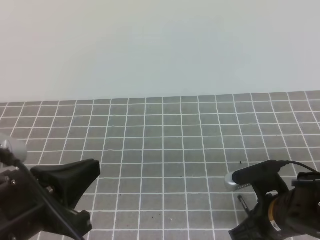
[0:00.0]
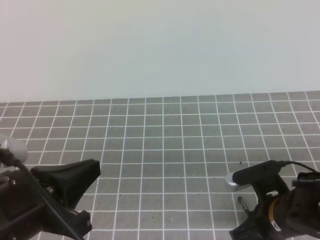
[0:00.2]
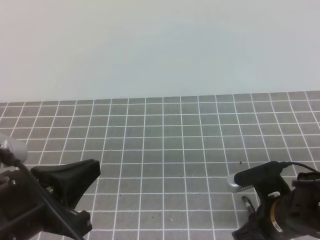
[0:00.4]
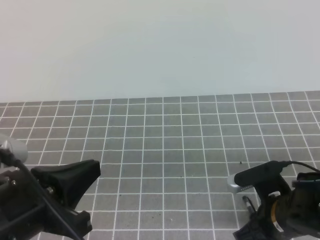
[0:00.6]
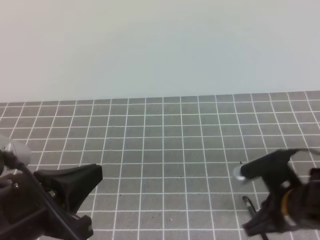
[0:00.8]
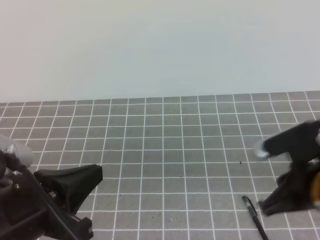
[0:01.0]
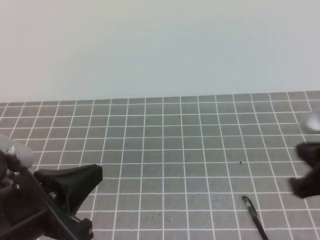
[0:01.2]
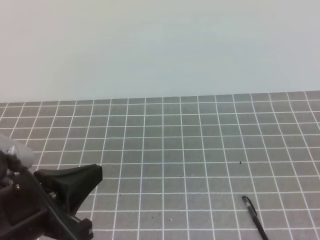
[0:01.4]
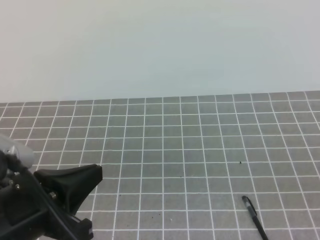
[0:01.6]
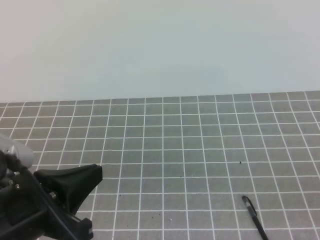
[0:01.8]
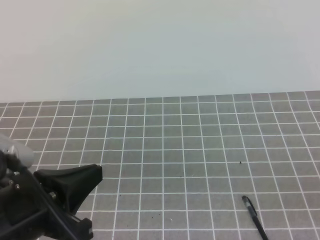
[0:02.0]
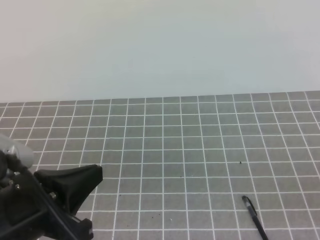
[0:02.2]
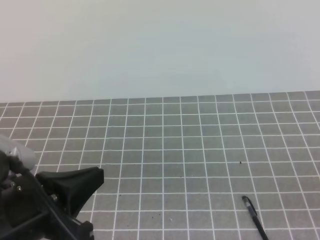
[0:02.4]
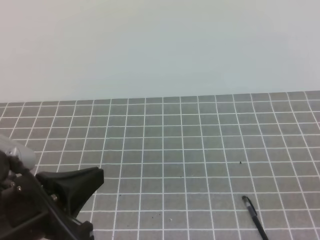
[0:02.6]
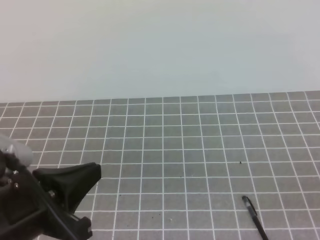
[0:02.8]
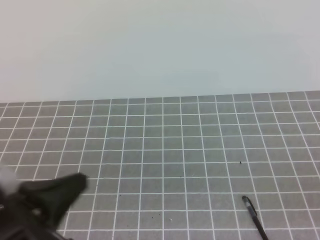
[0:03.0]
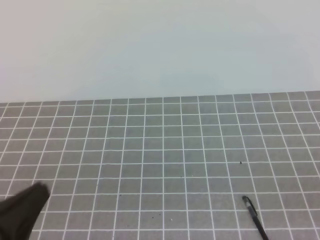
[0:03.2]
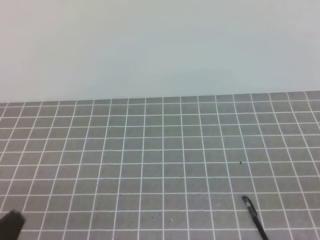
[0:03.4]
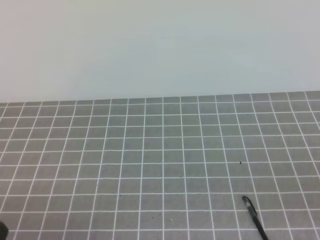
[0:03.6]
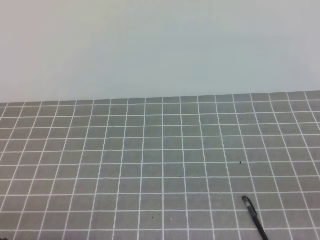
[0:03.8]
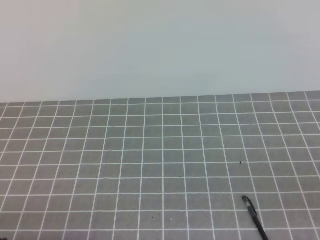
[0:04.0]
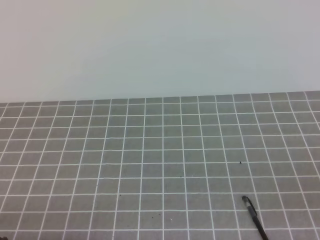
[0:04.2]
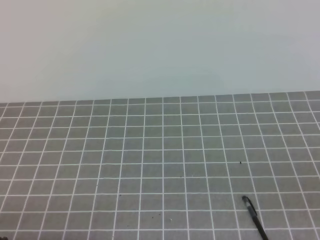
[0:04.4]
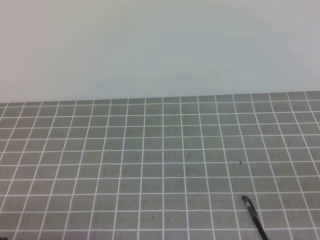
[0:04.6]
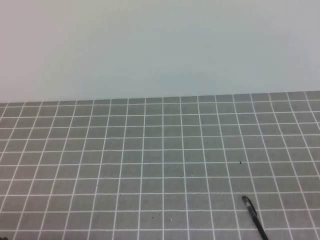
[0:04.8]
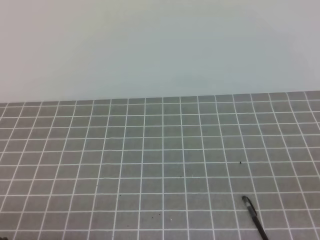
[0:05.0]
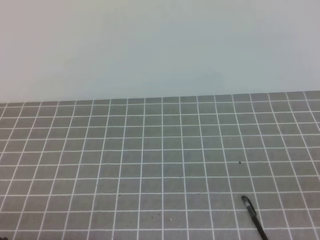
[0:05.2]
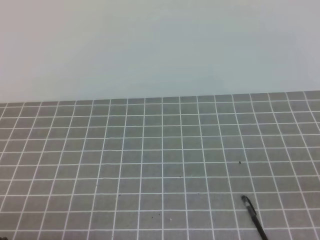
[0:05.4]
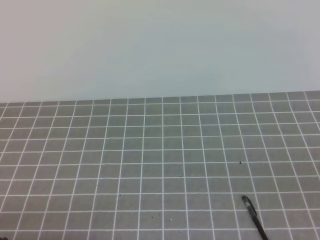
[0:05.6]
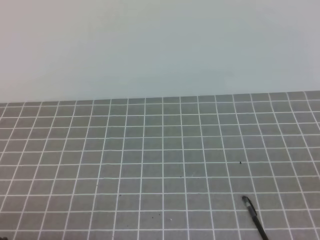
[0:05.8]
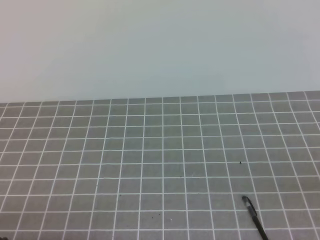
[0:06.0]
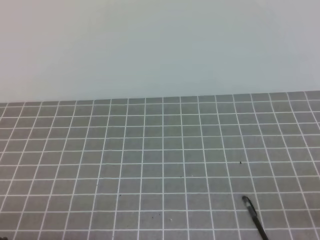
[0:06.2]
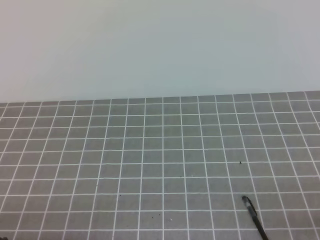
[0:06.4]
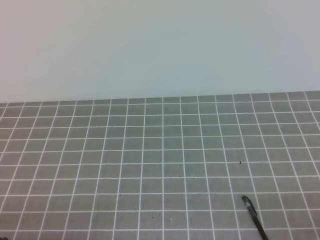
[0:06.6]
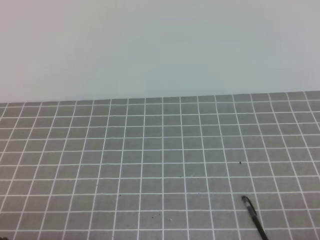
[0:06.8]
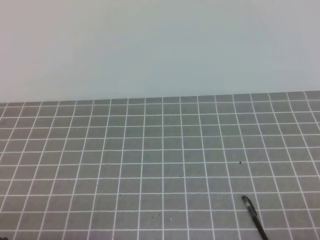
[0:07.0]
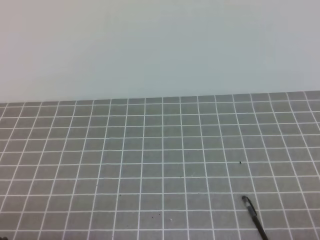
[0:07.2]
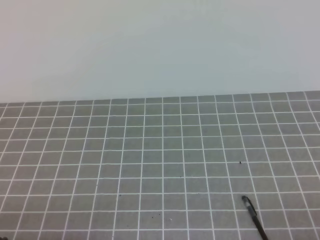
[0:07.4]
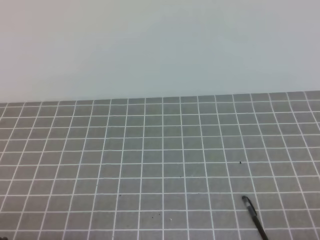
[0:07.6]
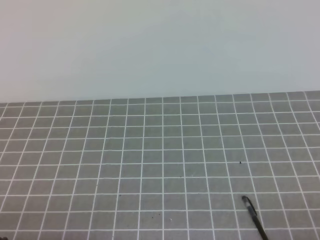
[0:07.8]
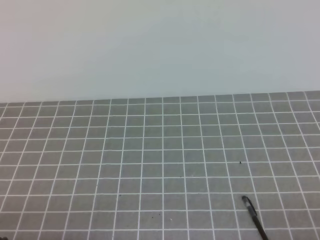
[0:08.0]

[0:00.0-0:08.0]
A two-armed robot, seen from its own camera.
Task of the whole recording: on the grey tablecloth, hold the pen cap in one hand and the pen in the other, then cover the pen cap.
Step, 0:00.0 to 0:08.0: Put the cap on the pen.
0:00.0 to 0:01.6: The right gripper travels upward, backward and to the right by approximately 25 cm, and closes.
0:01.6 to 0:03.2: The left gripper shifts by some 5 cm.
0:03.2 to 0:04.8: The left gripper is displaced downward by about 10 cm.
